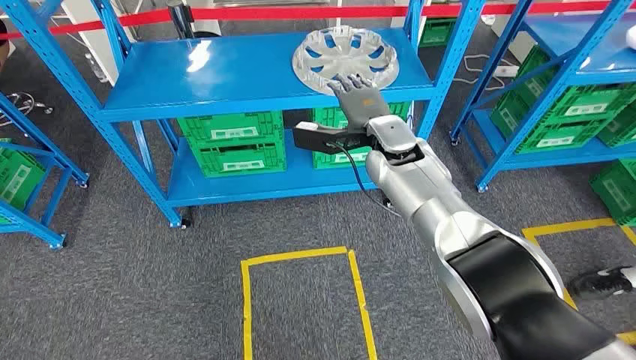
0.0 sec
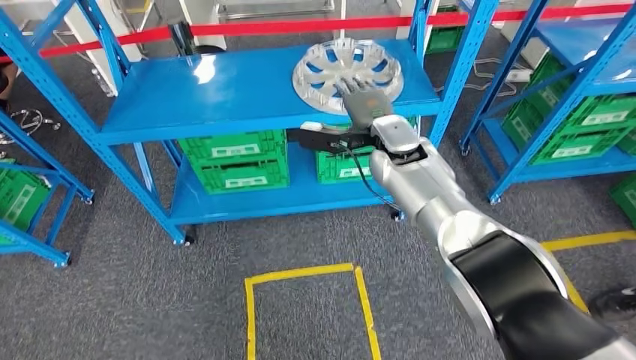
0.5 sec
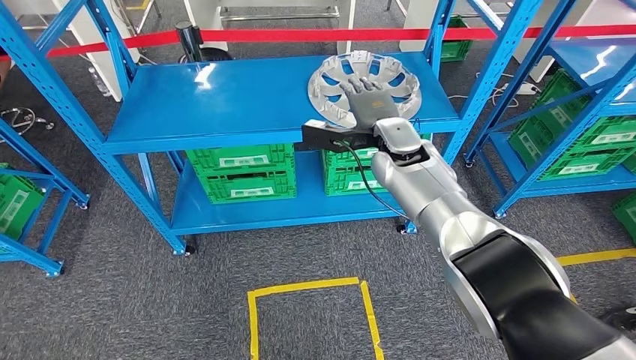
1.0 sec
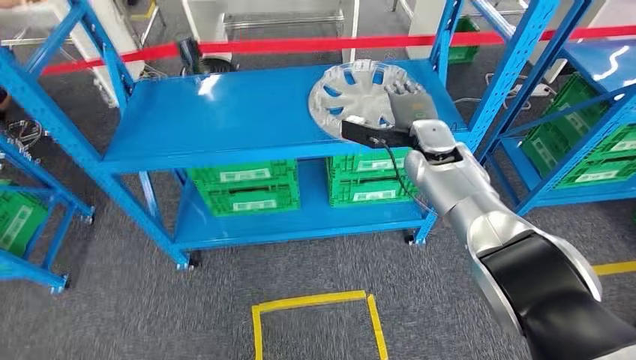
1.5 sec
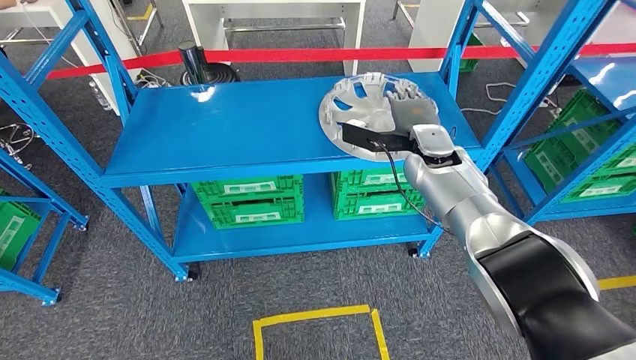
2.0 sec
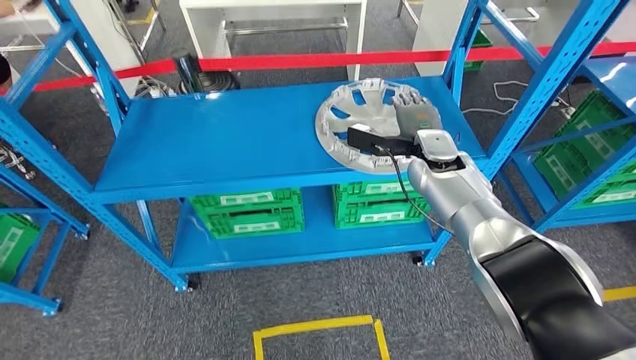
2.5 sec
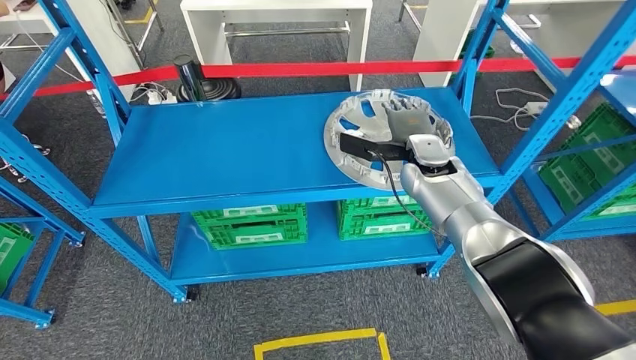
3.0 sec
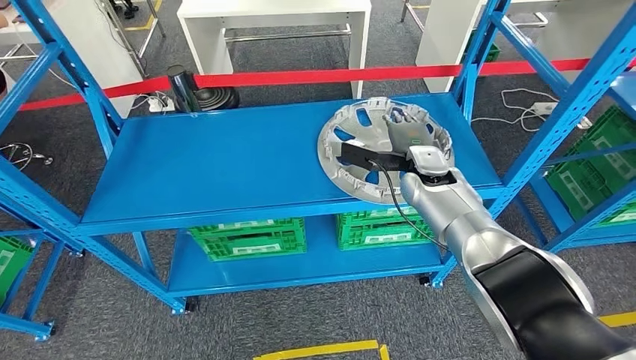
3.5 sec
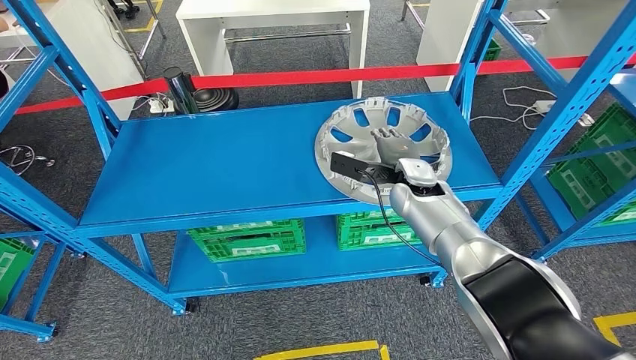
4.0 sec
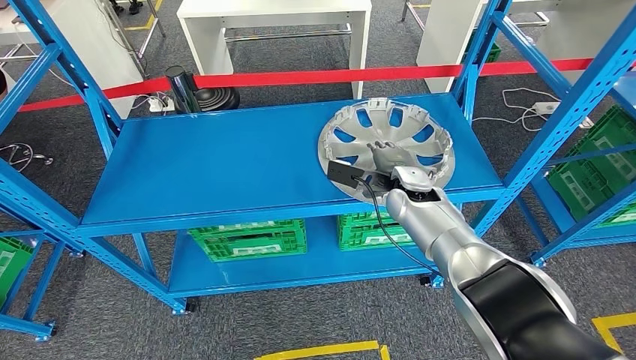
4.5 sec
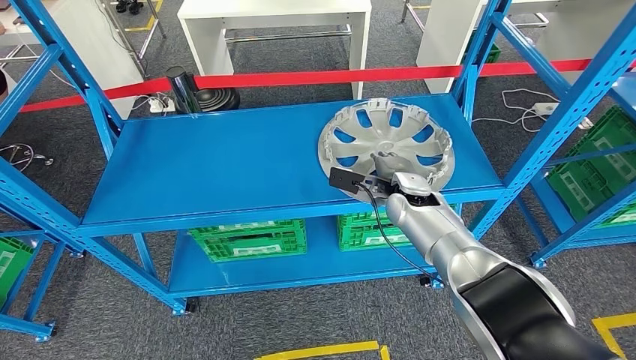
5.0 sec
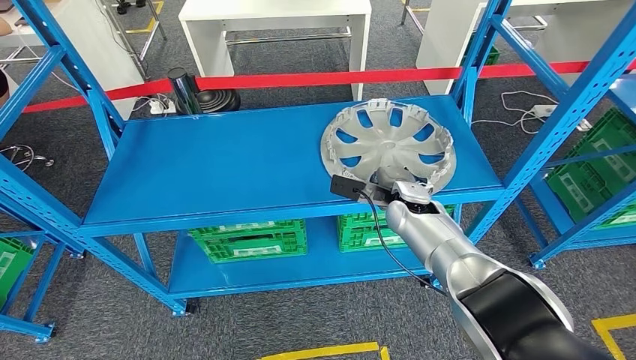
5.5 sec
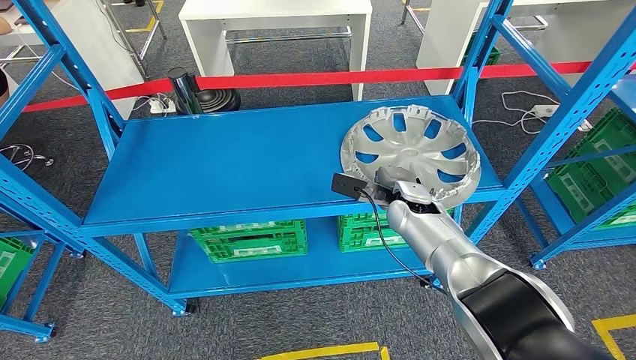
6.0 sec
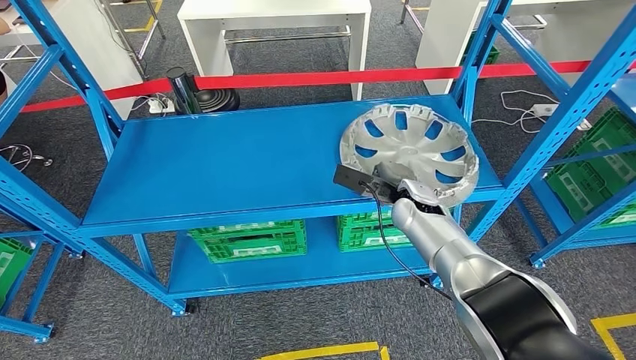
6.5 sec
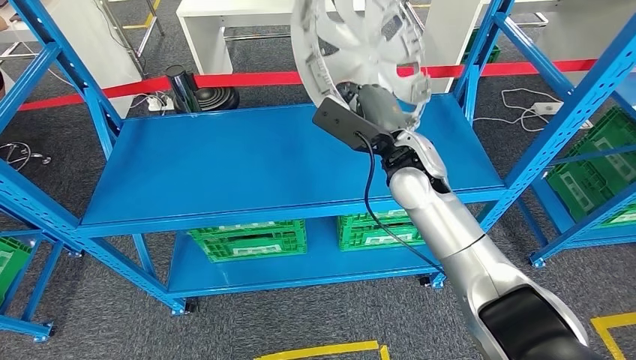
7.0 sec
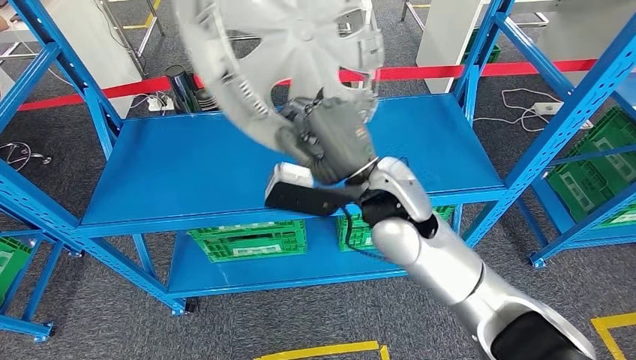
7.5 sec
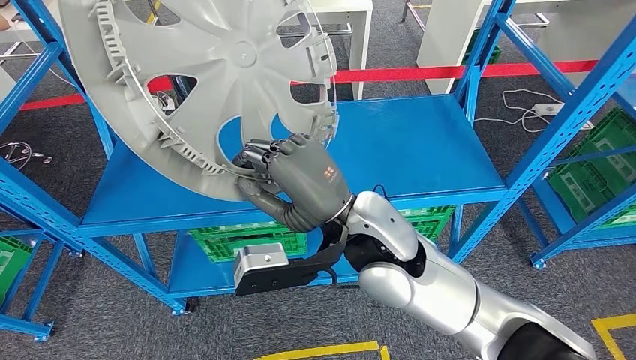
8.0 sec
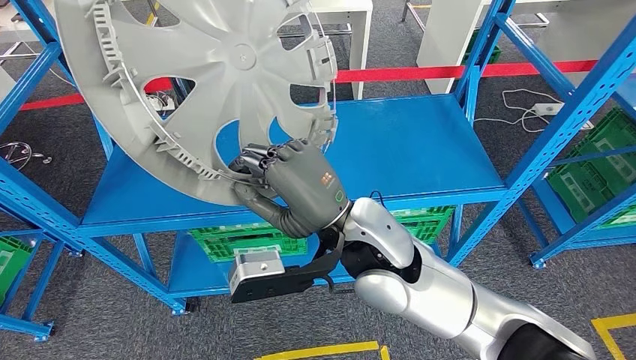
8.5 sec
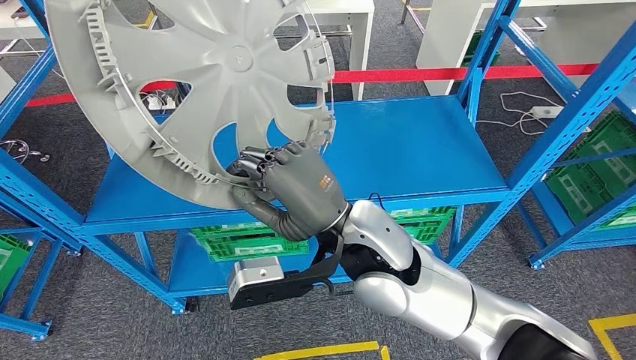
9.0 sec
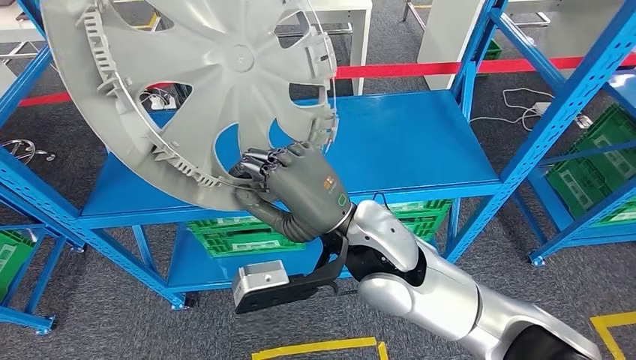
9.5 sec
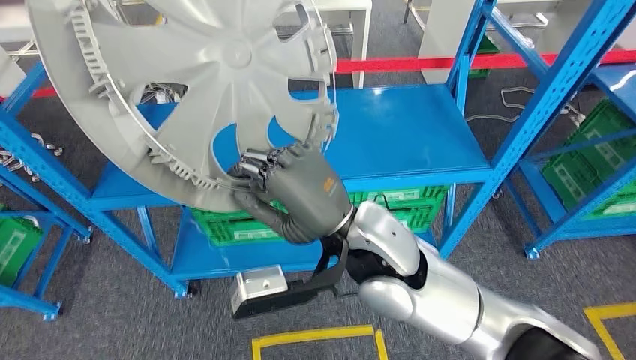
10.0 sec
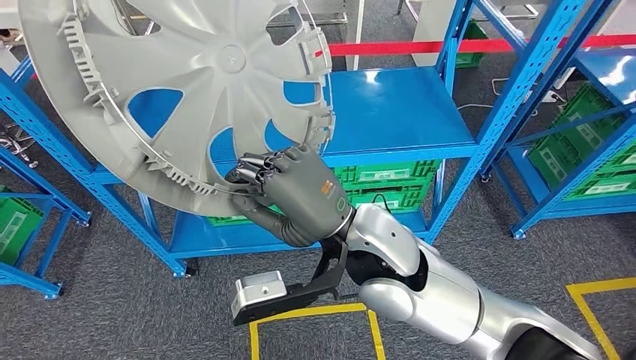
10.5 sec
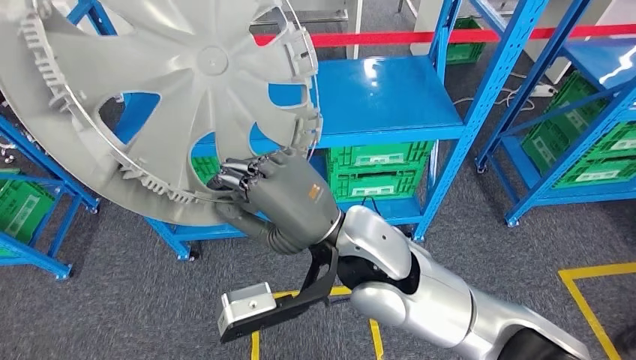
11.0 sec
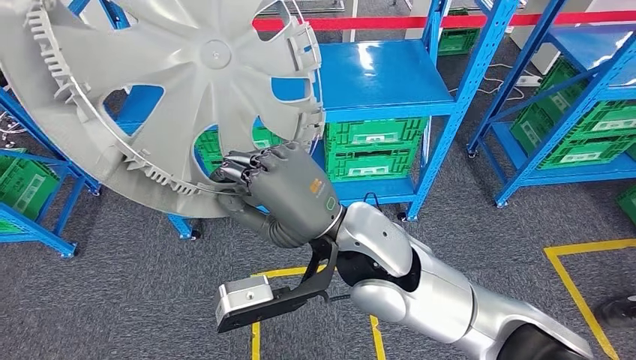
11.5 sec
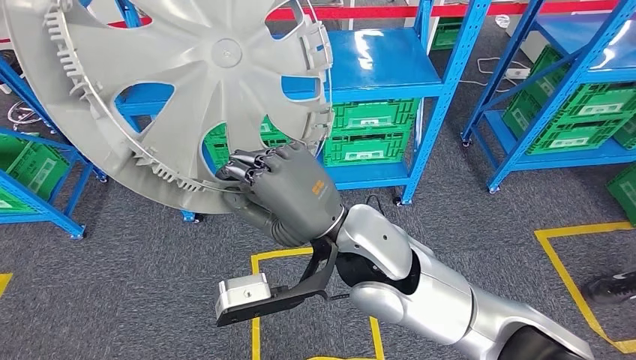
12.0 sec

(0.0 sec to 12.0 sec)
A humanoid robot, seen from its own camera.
Step, 0.0 sec - 7.0 sec: Pick up the small parts from the shelf.

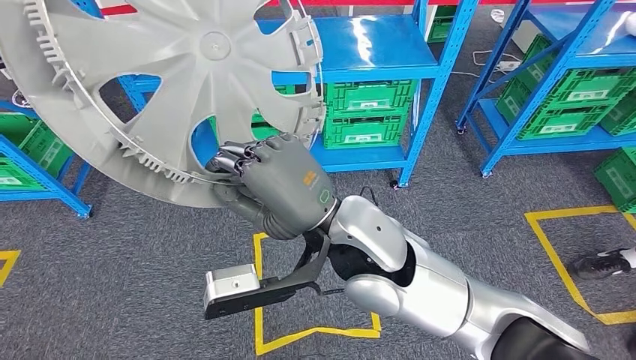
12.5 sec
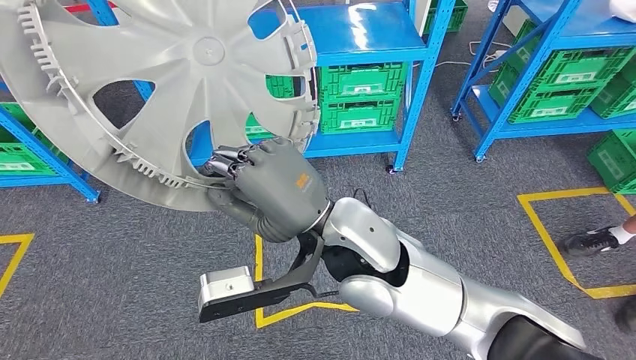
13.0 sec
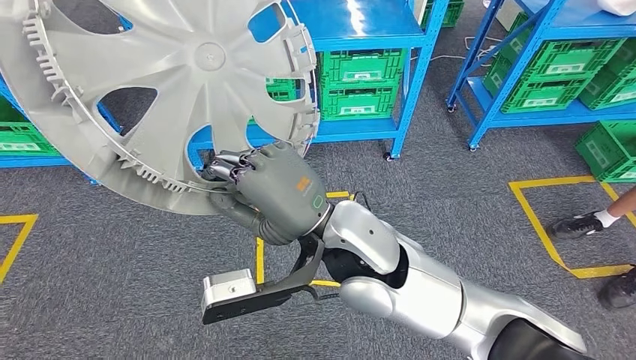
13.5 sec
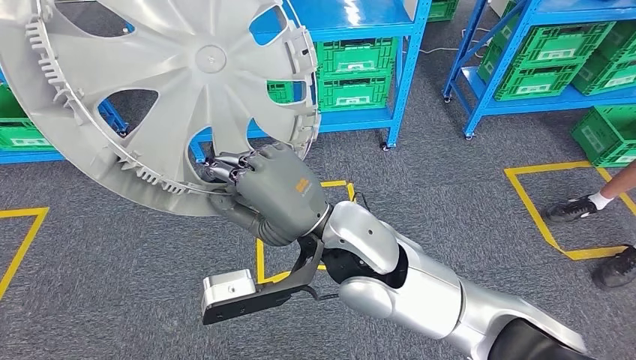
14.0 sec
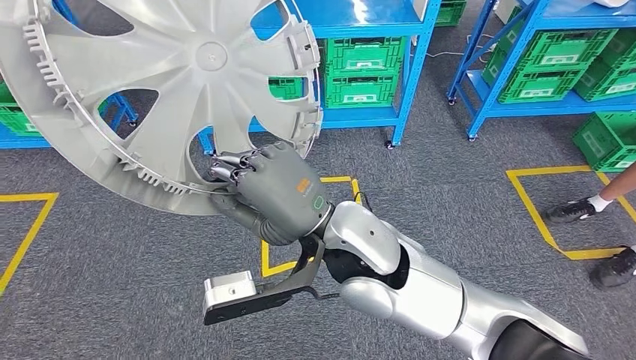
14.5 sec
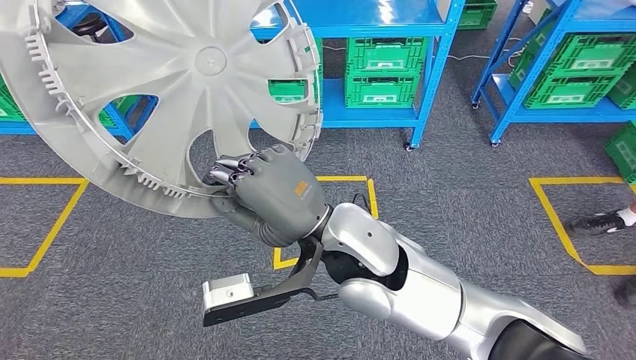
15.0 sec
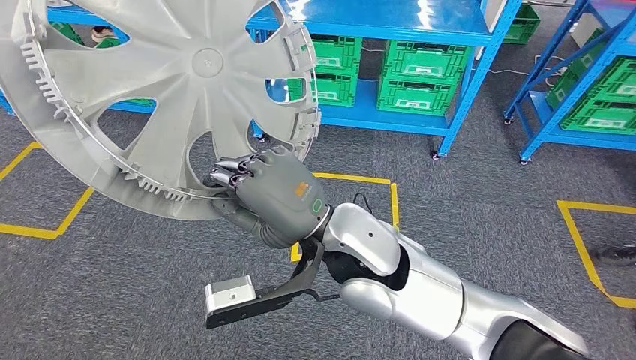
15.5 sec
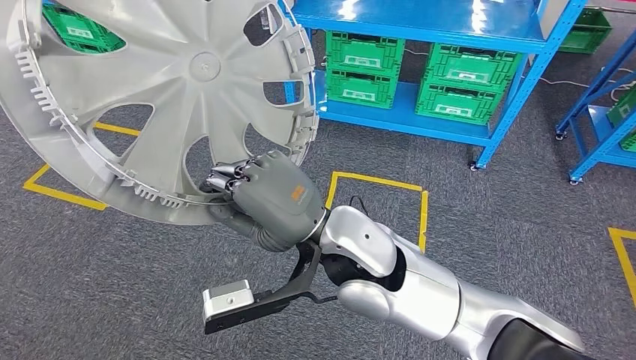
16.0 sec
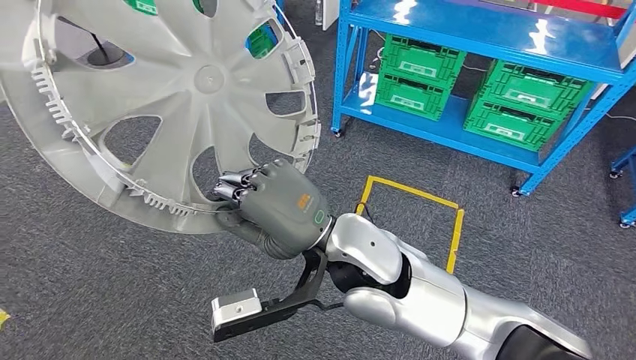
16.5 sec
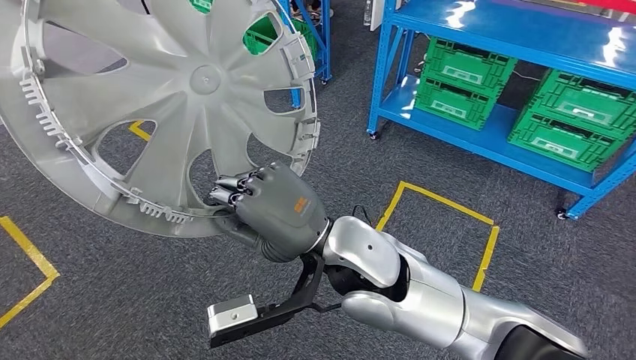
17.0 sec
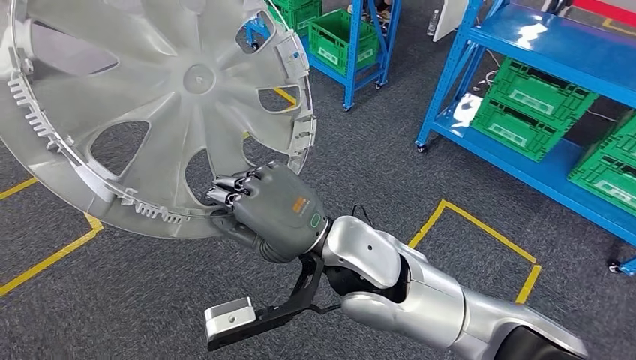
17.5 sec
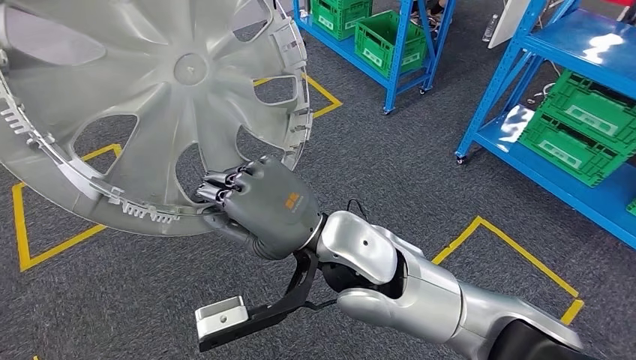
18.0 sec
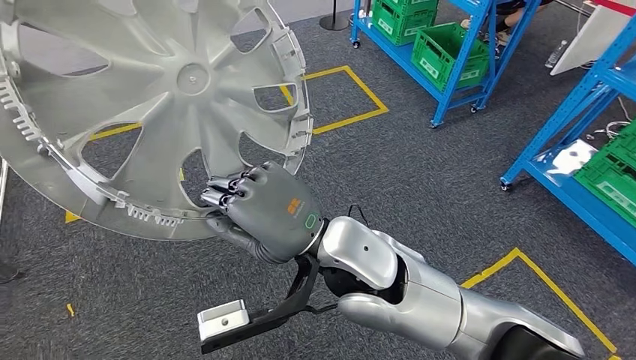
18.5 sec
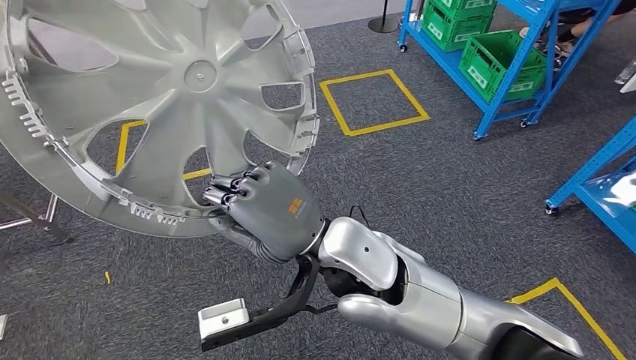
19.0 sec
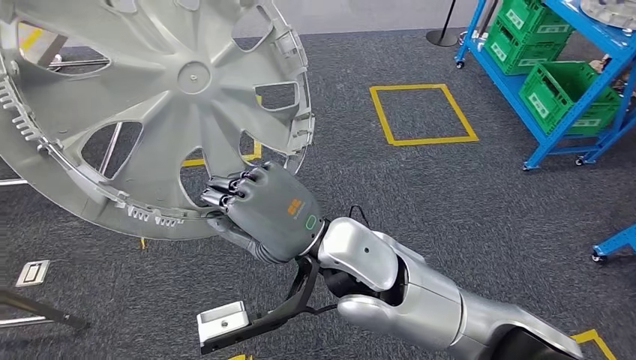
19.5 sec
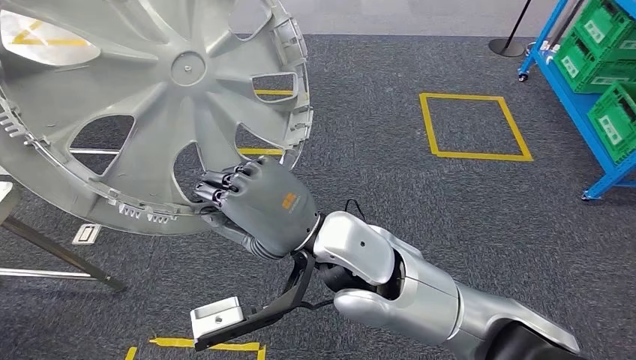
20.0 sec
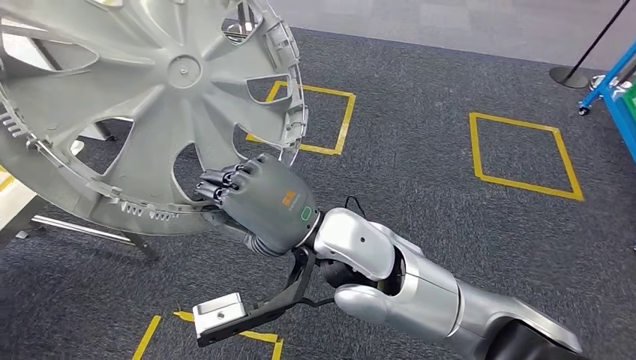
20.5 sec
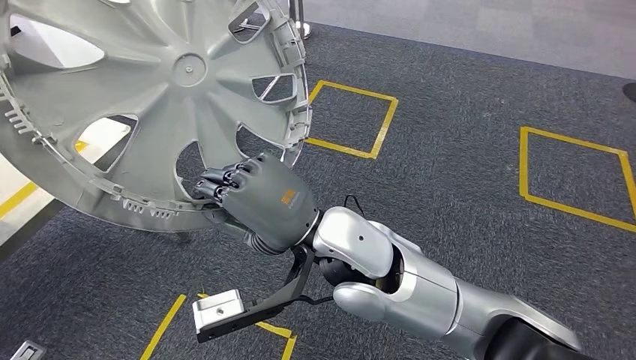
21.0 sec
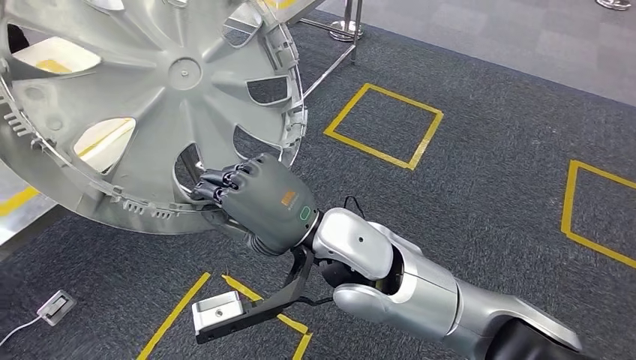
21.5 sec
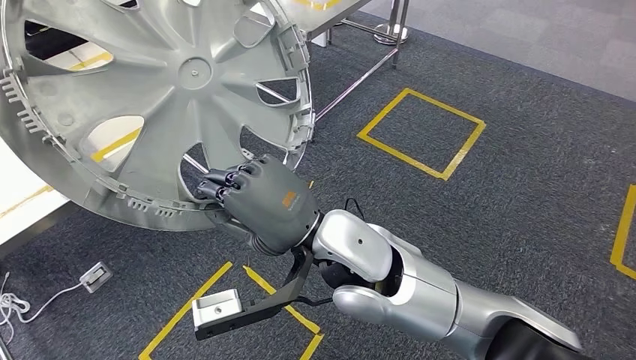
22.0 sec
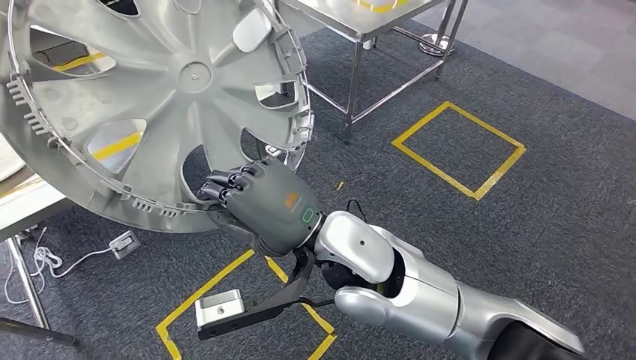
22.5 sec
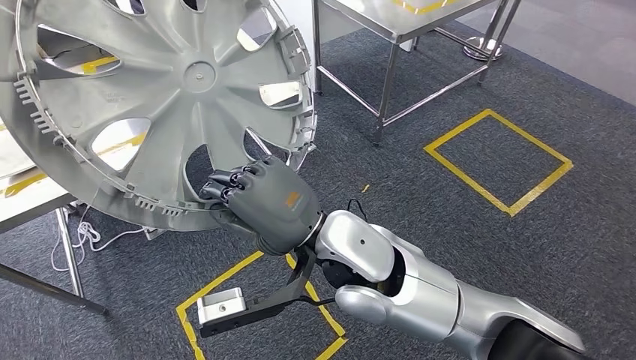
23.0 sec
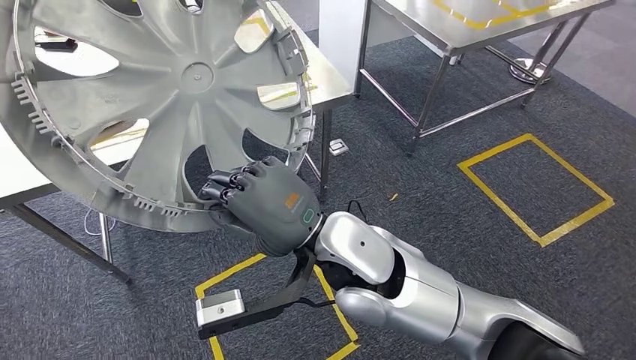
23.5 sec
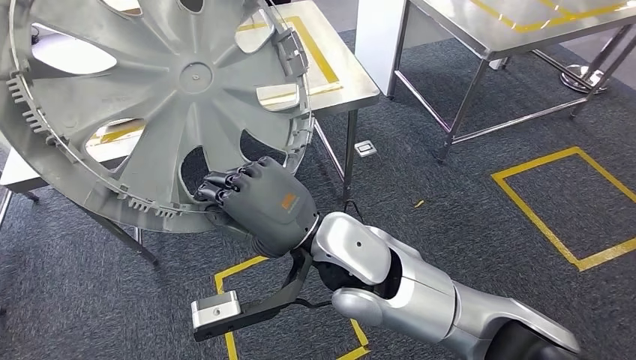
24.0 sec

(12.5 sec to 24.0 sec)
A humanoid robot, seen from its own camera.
Step, 12.5 sec - 23.5 sec: Move the small parts to the workbench.
